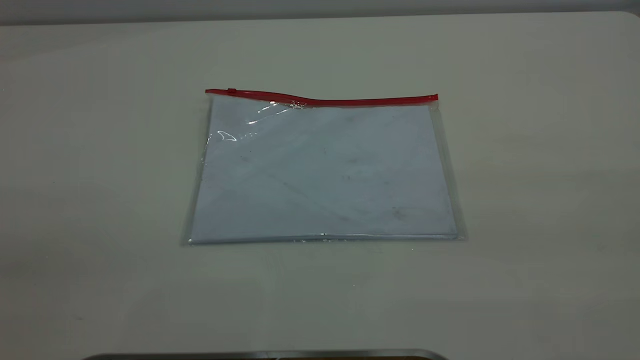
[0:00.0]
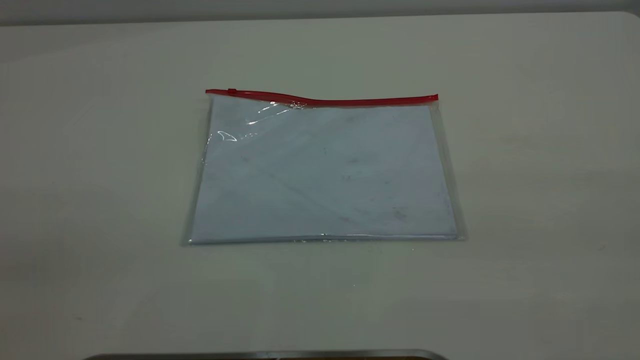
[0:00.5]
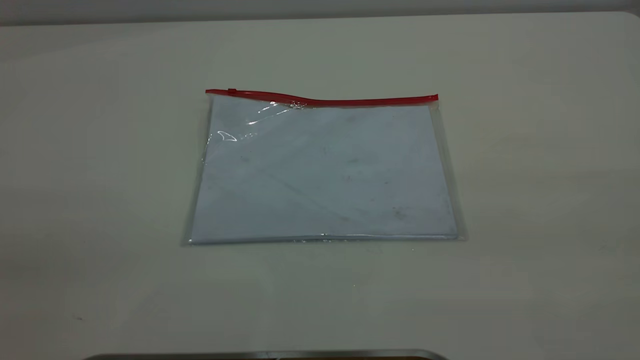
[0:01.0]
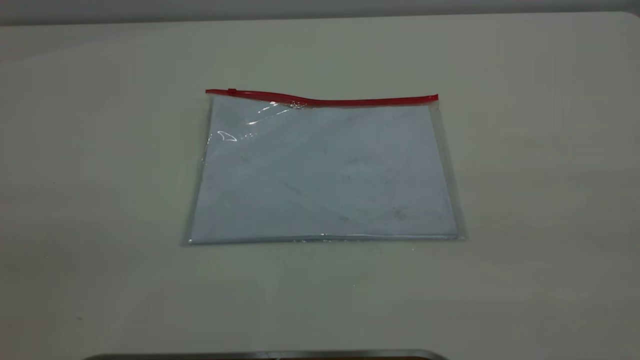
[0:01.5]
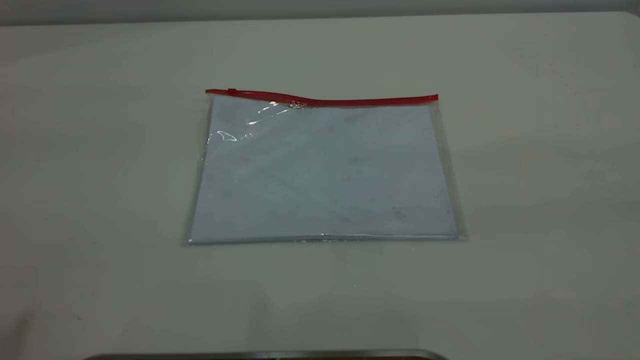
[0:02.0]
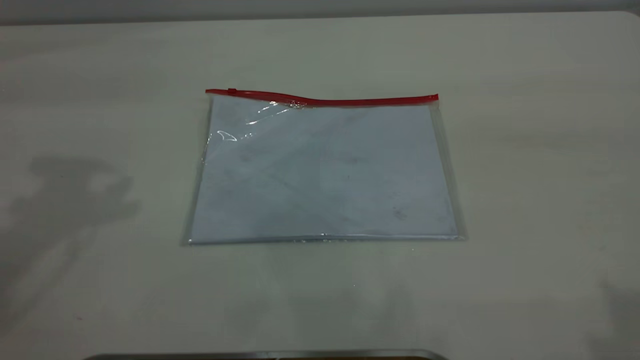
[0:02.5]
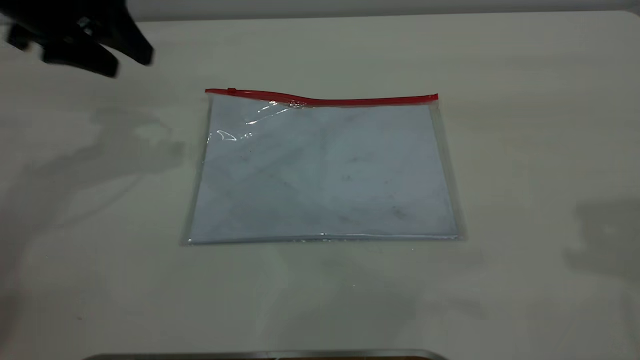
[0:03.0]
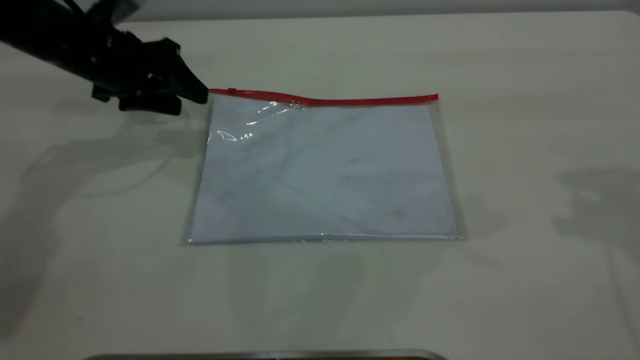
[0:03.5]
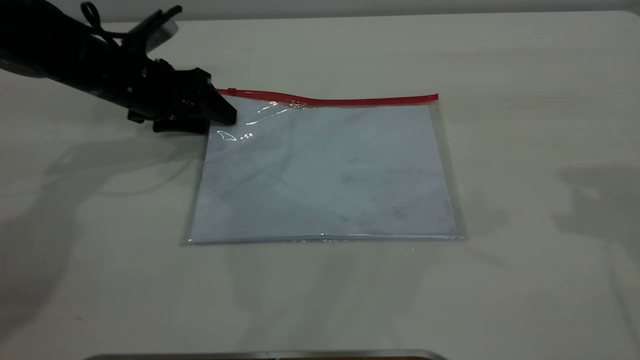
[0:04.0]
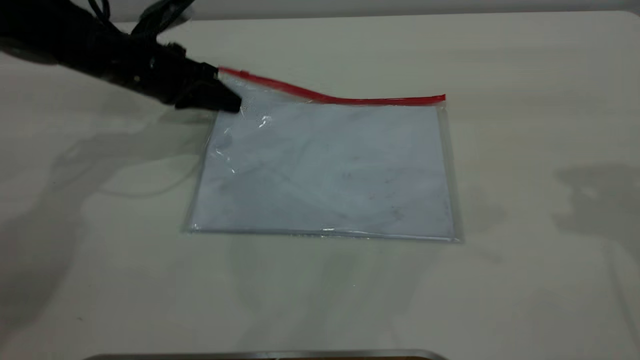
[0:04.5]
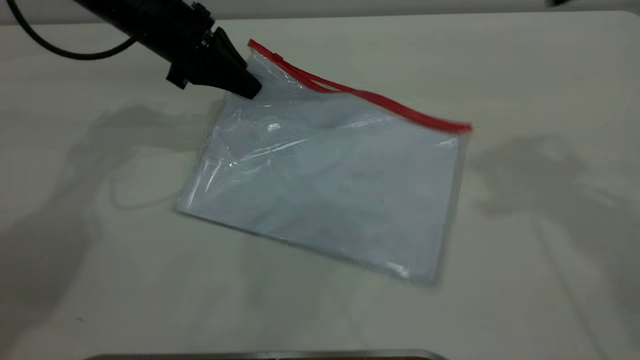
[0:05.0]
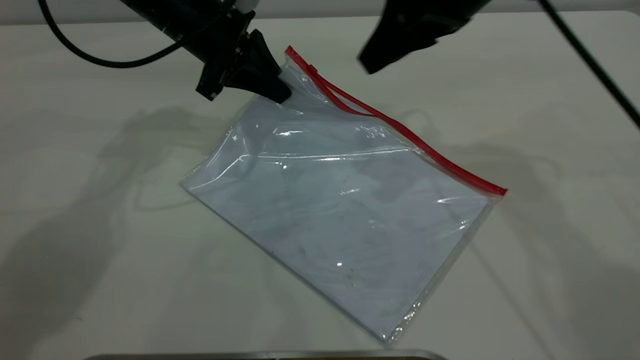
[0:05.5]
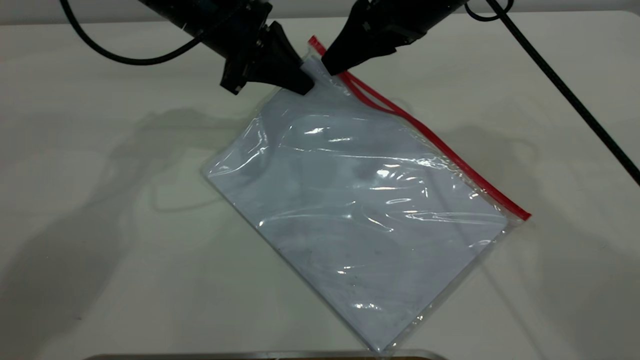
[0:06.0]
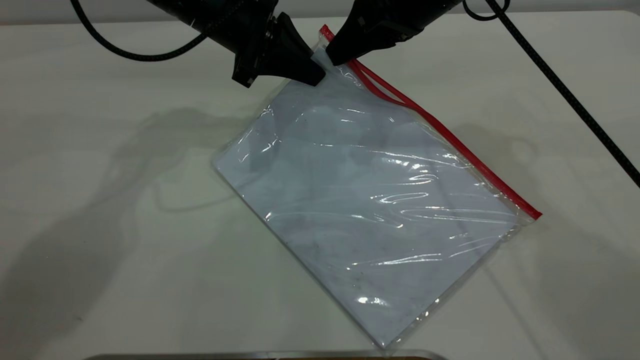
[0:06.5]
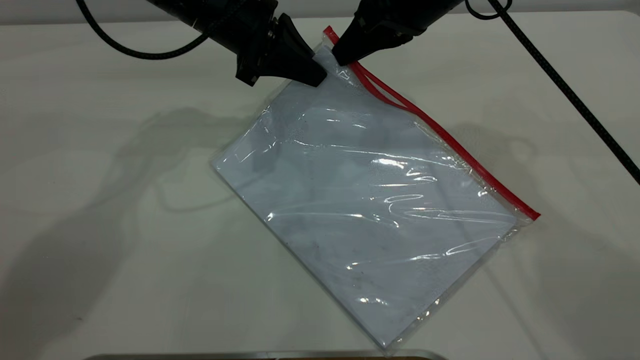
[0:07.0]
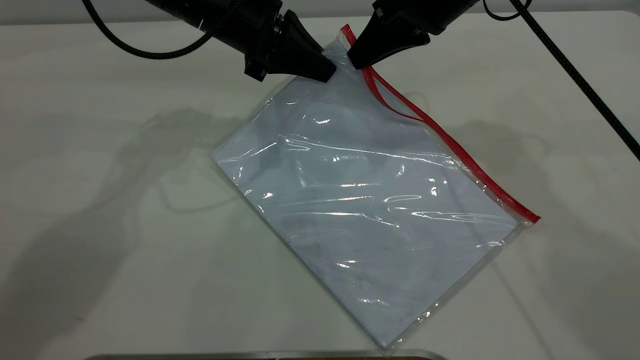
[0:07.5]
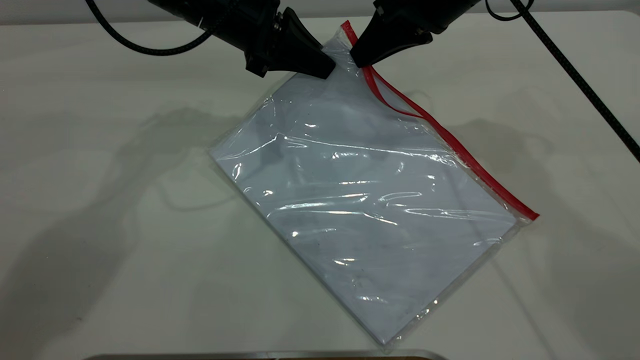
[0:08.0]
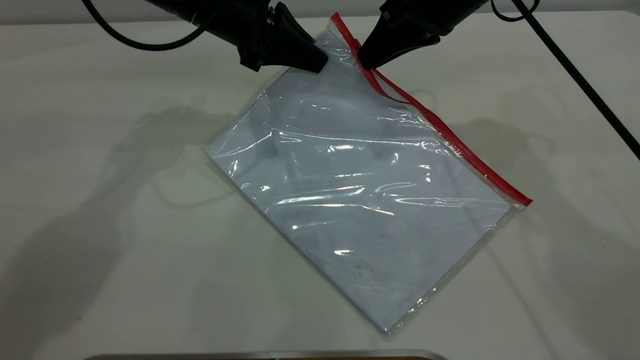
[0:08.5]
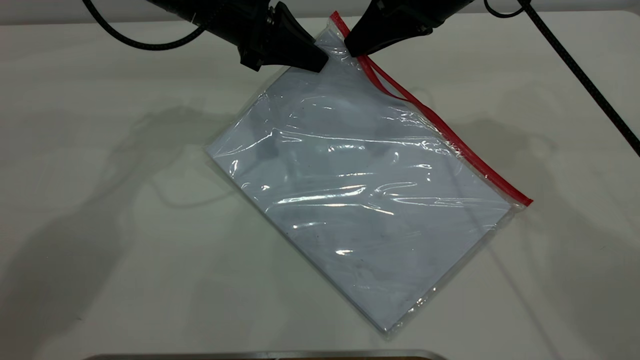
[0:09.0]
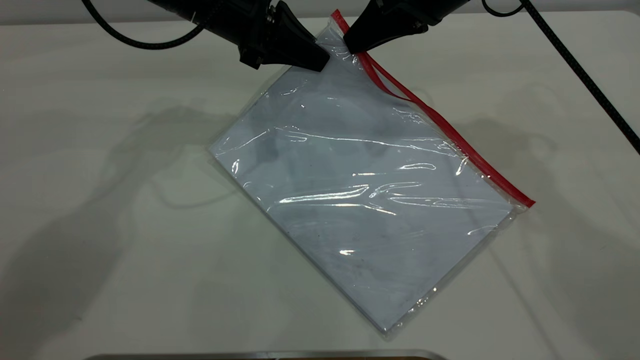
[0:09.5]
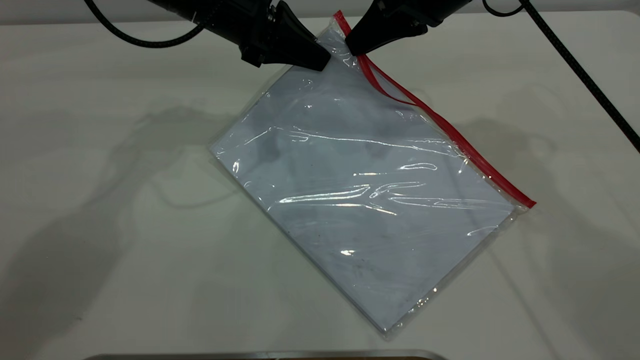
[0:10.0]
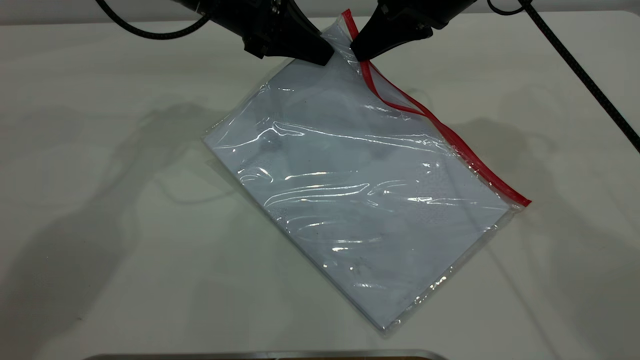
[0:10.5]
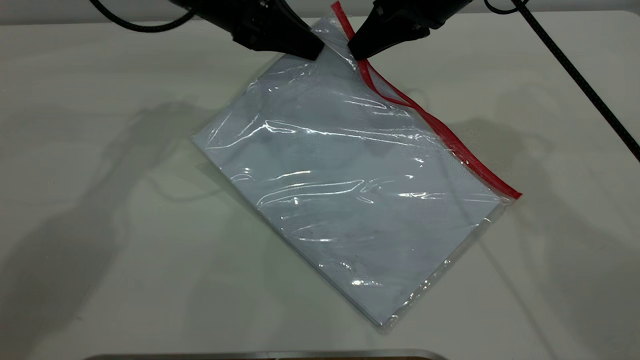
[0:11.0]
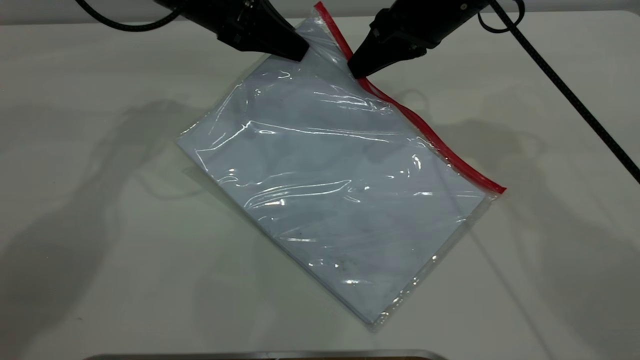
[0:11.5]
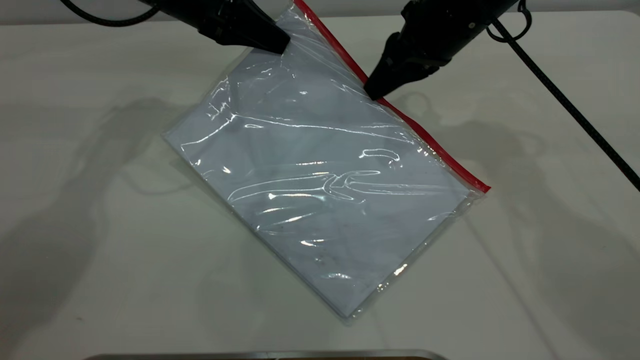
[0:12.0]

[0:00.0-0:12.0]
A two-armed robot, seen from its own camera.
Step, 0:00.0 to 0:04.5: Pick up the transparent plastic bag with the left gripper.
0:02.0 to 0:04.0: The left gripper heads downward and forward, covering some 50 cm.
0:04.0 to 0:06.0: The left gripper shifts approximately 15 cm to the right and upward, and closes. Meanwhile the right gripper is displaced to the left, forward and downward by about 25 cm.
0:06.0 to 0:08.0: The right gripper closes.
0:08.0 to 0:10.0: The right gripper opens, then closes again.
0:10.0 to 0:12.0: The left gripper shifts by some 5 cm.

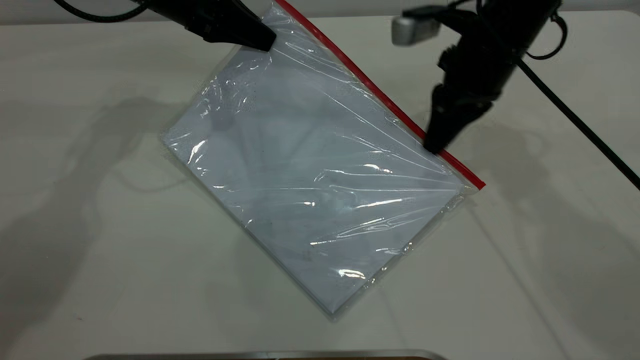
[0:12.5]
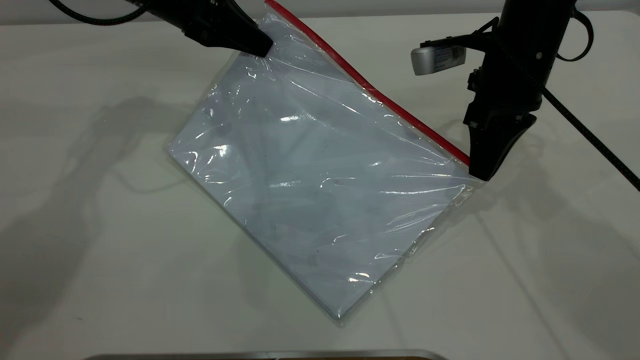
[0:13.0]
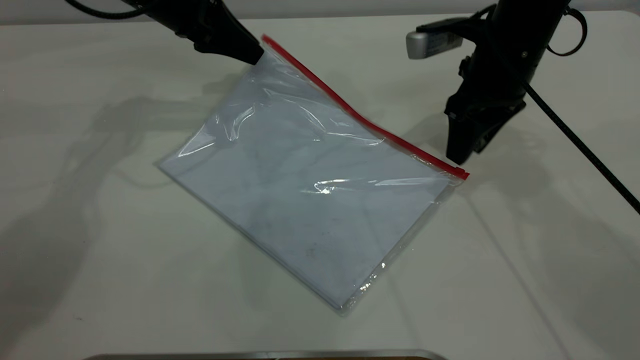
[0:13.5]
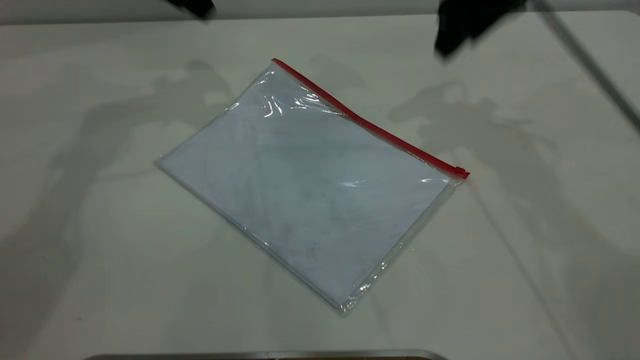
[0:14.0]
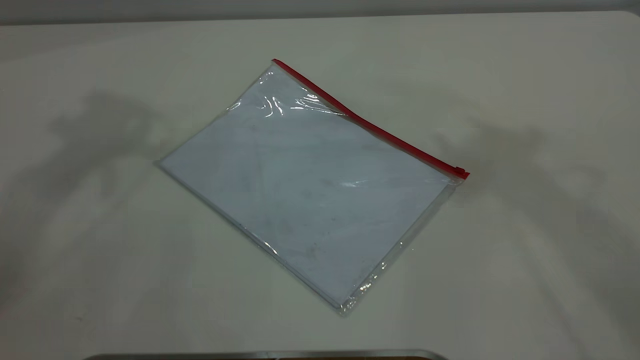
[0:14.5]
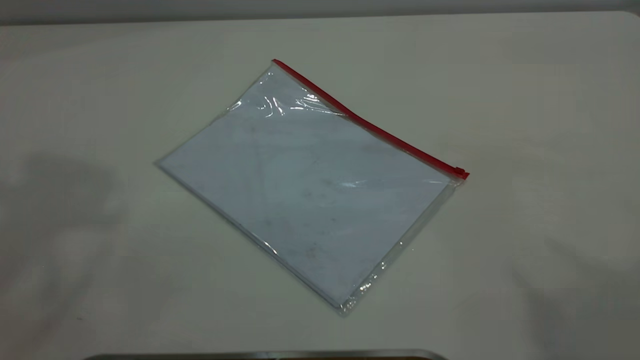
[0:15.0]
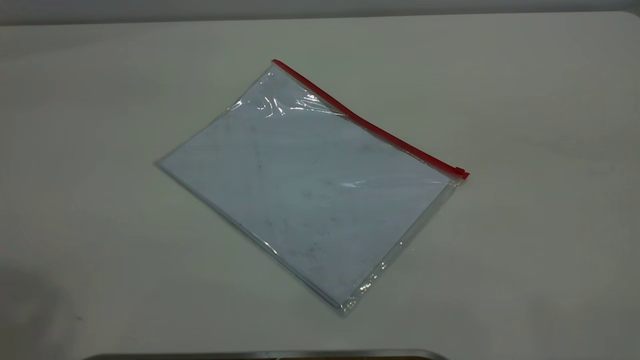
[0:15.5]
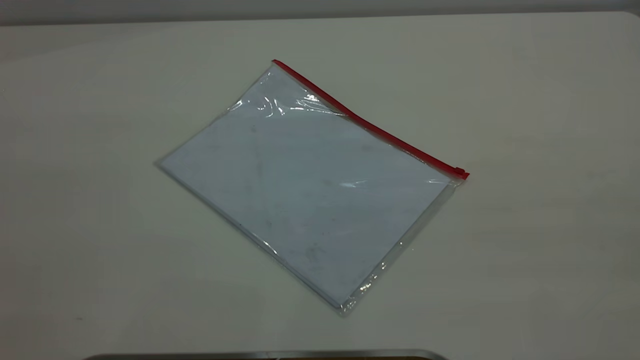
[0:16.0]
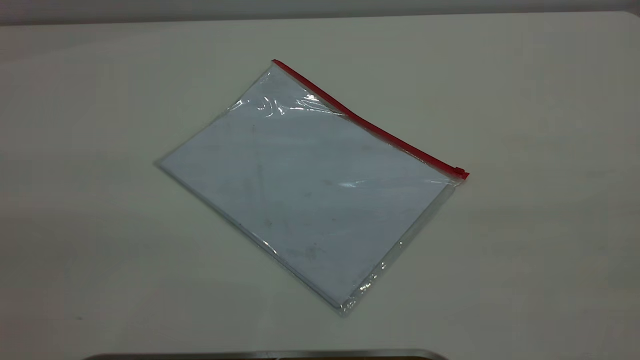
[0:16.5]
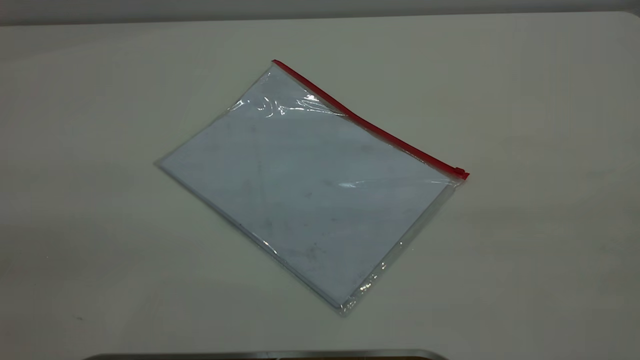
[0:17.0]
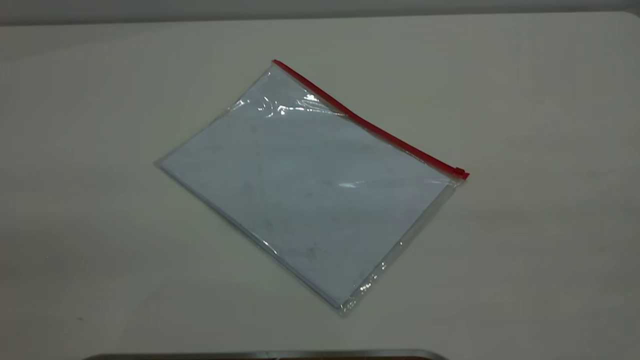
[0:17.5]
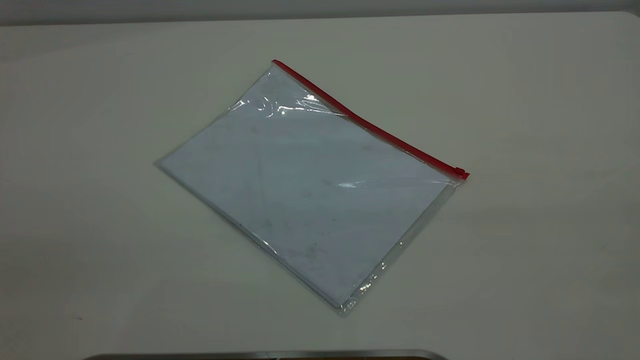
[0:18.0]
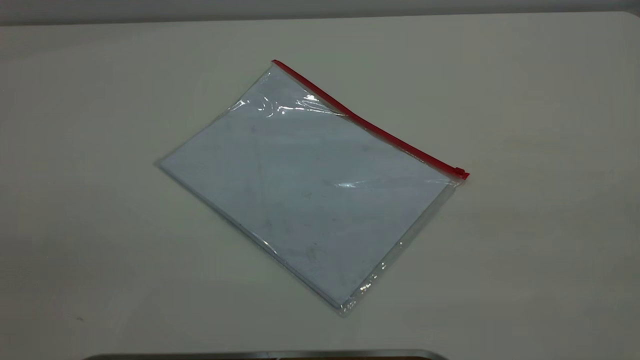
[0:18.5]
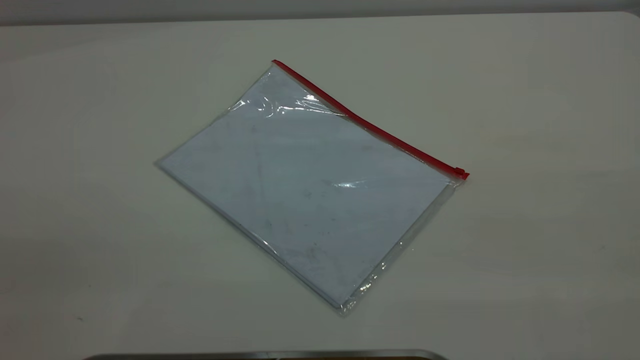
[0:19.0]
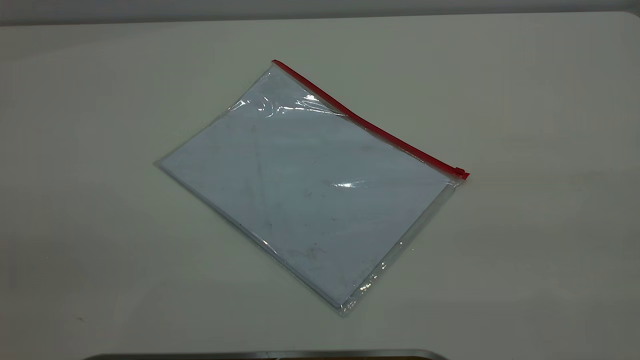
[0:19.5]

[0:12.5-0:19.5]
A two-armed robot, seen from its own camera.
0:12.5 to 0:14.5: The grippers both shift upward by approximately 35 cm. The right gripper opens its fingers. Meanwhile the left gripper opens its fingers.

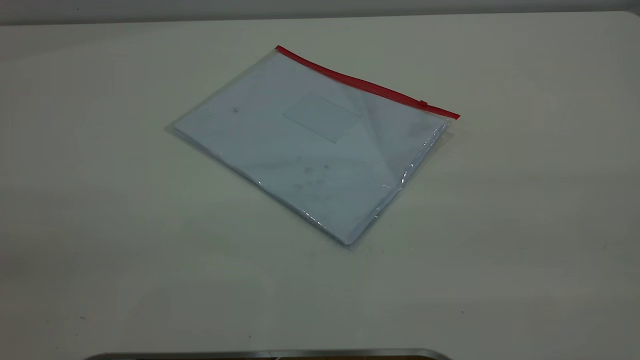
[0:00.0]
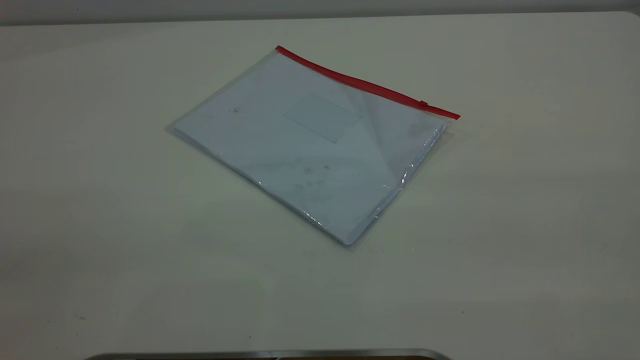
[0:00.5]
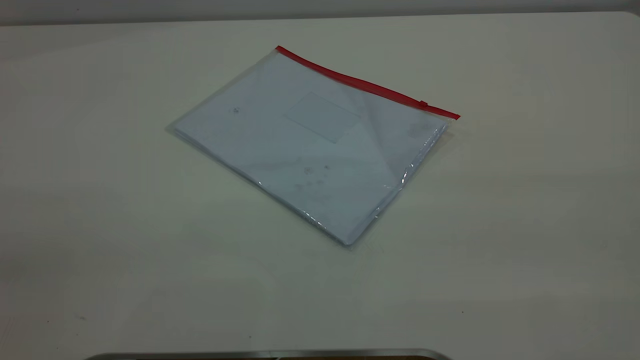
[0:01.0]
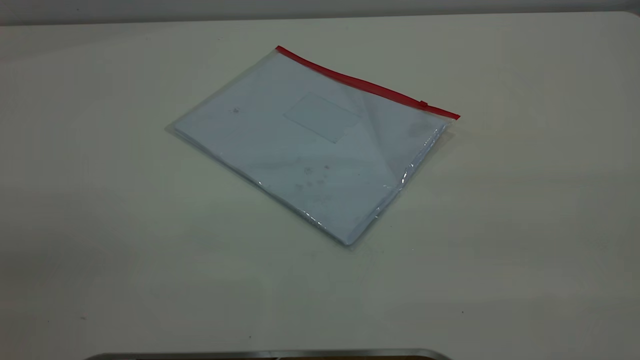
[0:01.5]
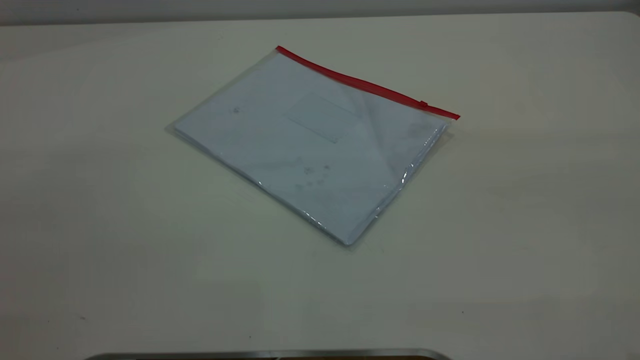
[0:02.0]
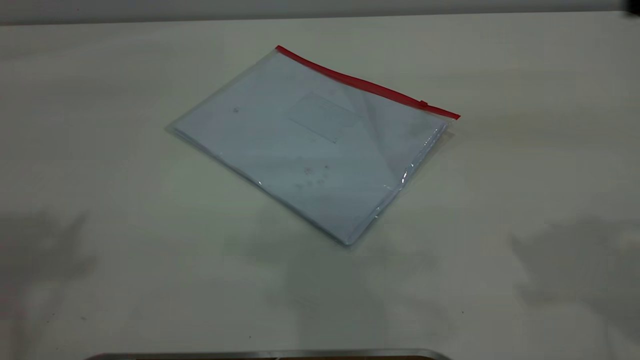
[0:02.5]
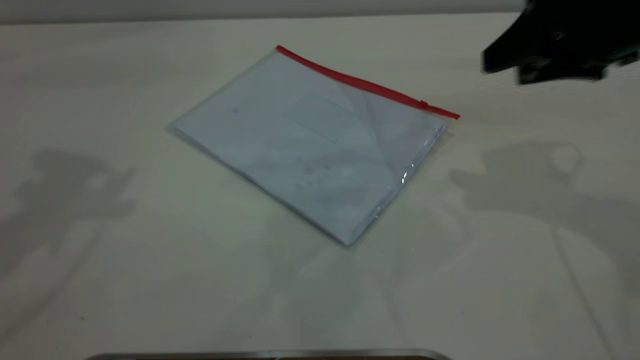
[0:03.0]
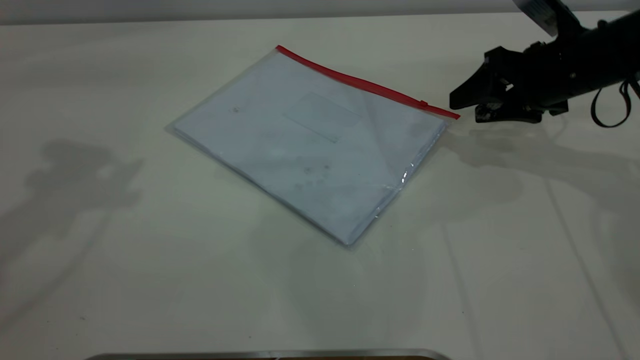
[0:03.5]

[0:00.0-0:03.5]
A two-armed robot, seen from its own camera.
0:02.0 to 0:03.5: The right gripper heads forward and downward, covering about 50 cm.
